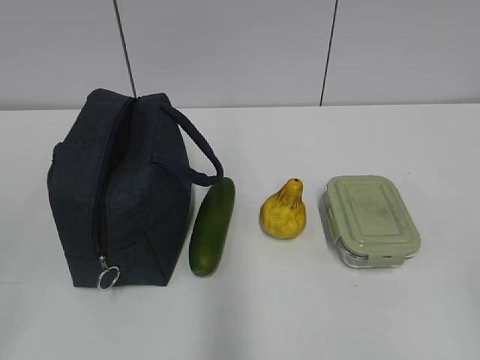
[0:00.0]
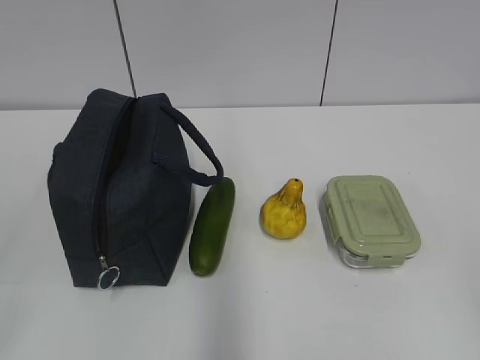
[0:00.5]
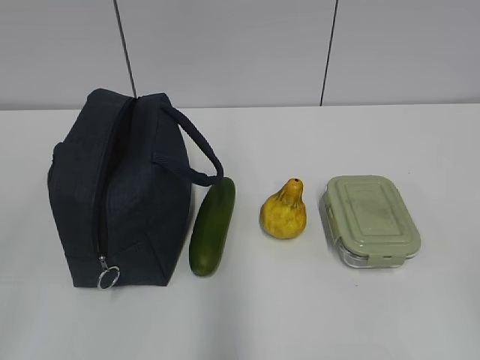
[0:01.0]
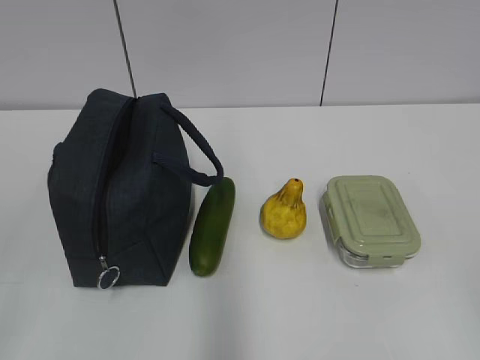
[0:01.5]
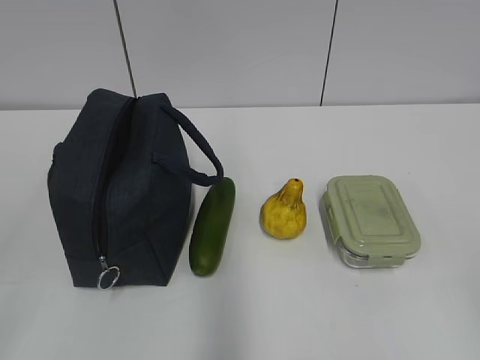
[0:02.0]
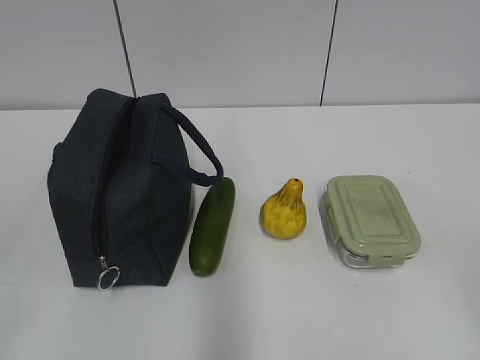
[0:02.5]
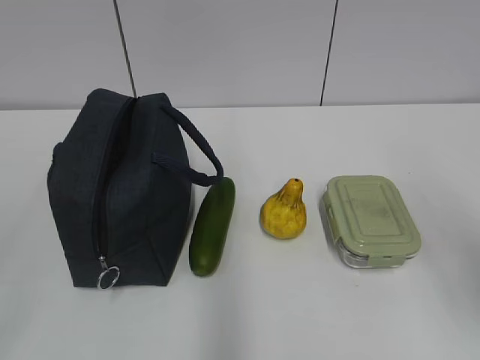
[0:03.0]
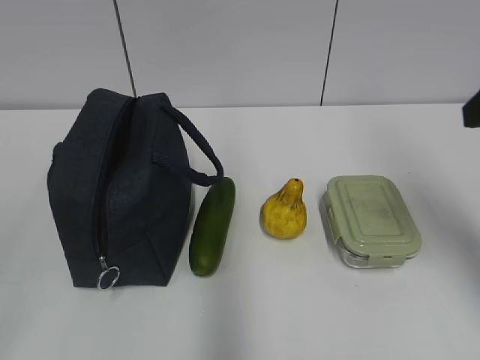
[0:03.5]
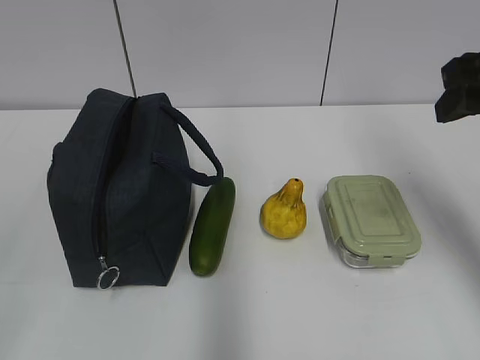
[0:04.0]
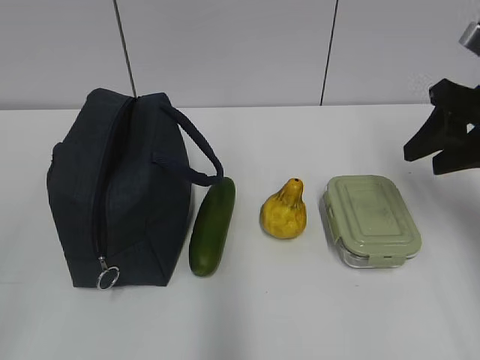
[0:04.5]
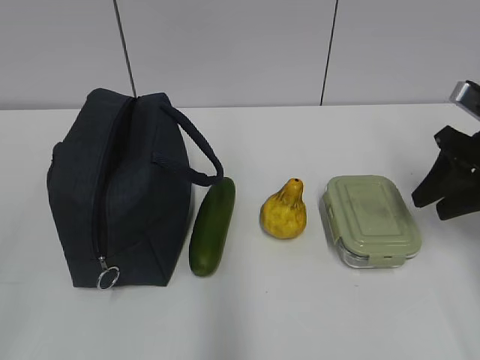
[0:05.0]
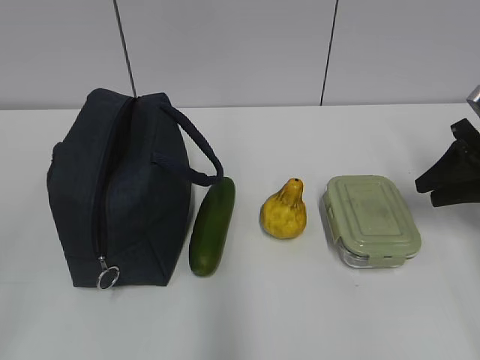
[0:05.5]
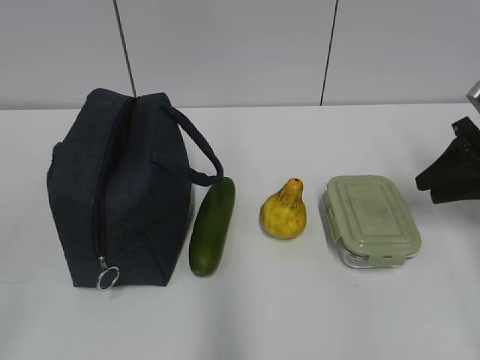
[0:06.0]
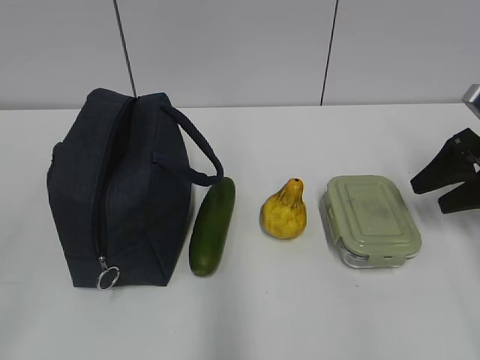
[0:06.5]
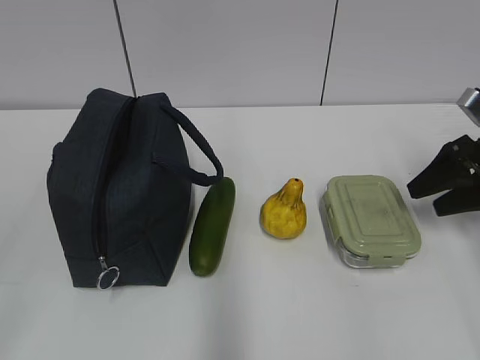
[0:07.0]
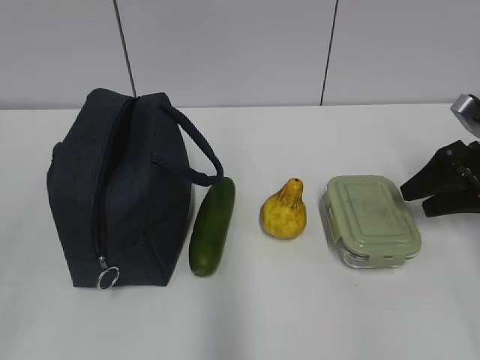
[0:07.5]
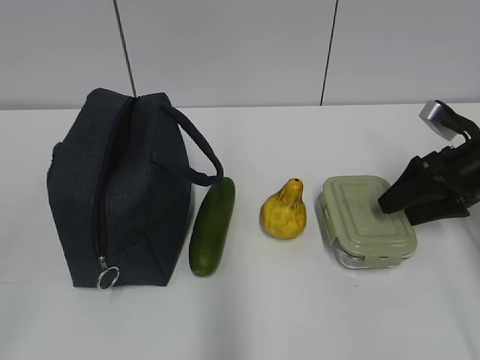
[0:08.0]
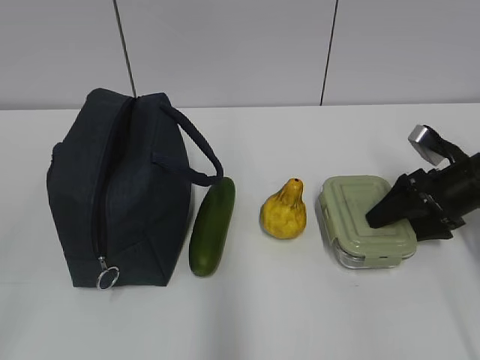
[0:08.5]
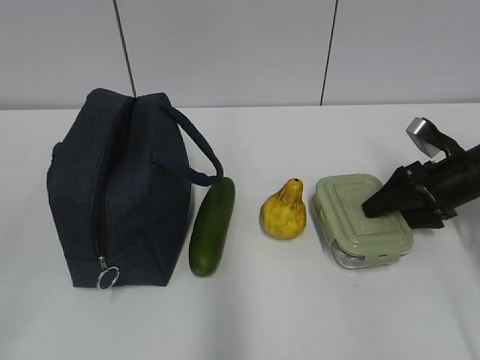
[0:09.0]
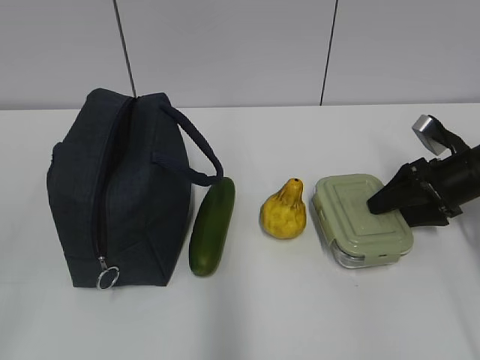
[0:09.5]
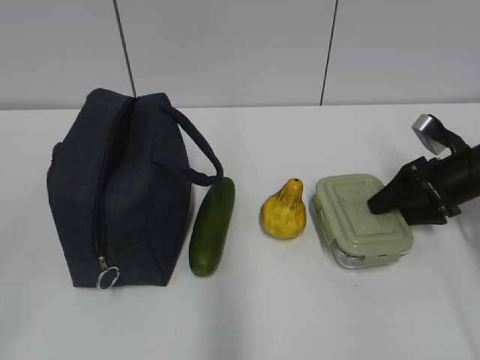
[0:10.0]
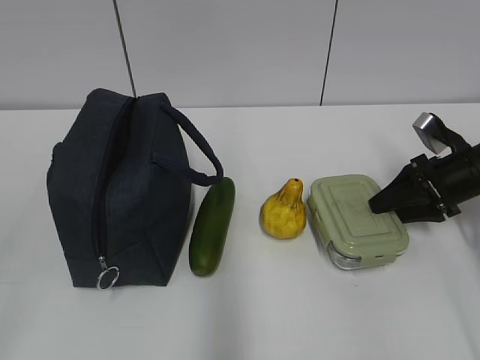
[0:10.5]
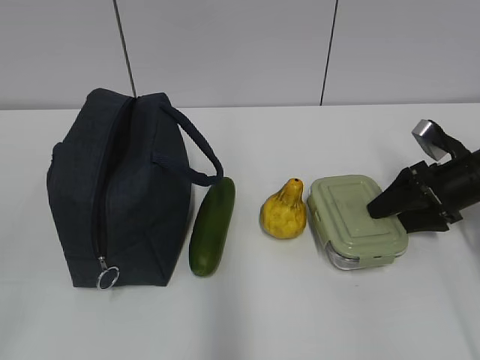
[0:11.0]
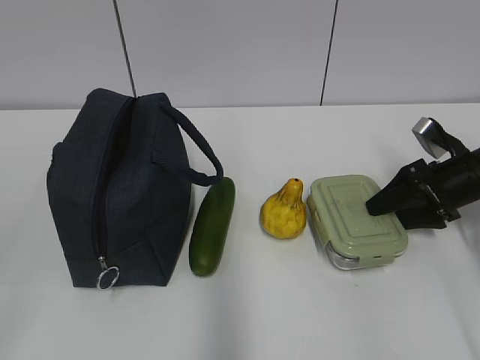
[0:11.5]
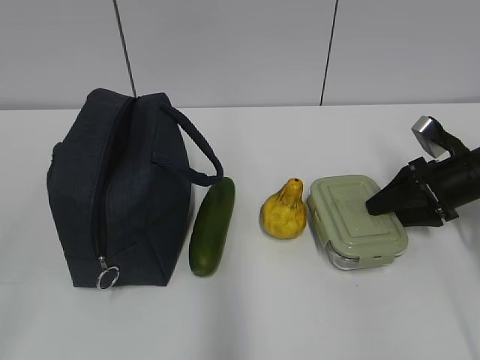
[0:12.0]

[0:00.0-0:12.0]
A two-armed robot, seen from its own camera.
0:02.0 to 0:04.0: The right gripper shifts approximately 30 cm forward, and opens.
0:04.0 to 0:06.0: The right gripper travels downward, to the right and forward by about 20 cm.
0:06.0 to 0:08.0: The right gripper opens its fingers.
0:08.0 to 0:10.0: There are only small adjustments of the grippers.
0:10.0 to 0:12.0: Both grippers stay about where they are.

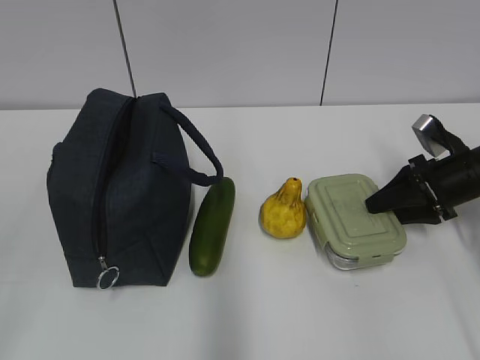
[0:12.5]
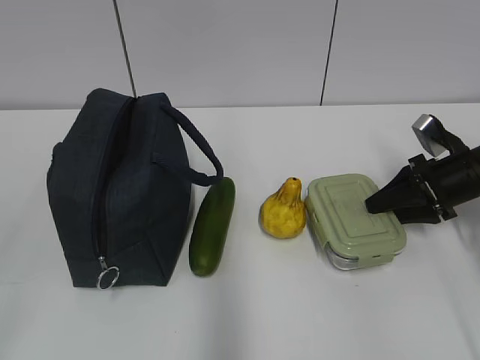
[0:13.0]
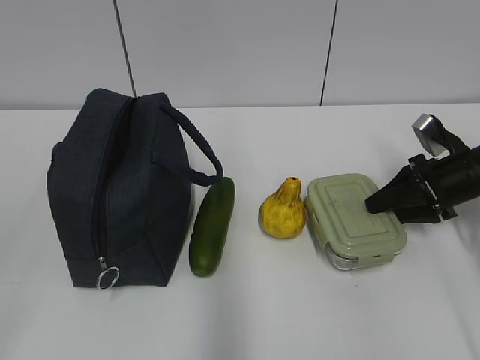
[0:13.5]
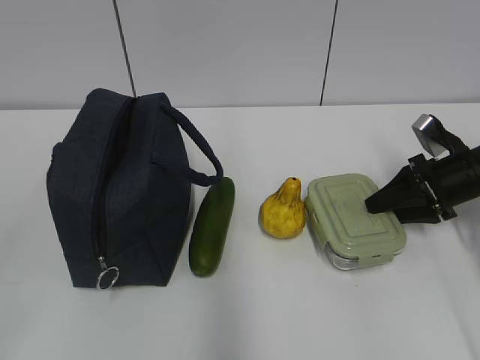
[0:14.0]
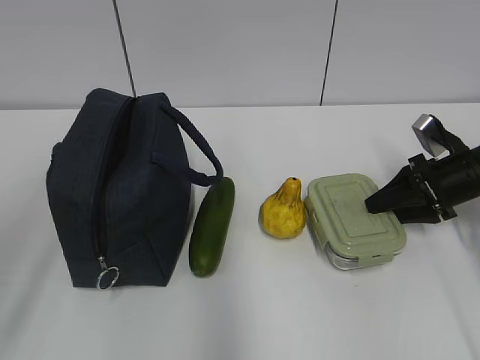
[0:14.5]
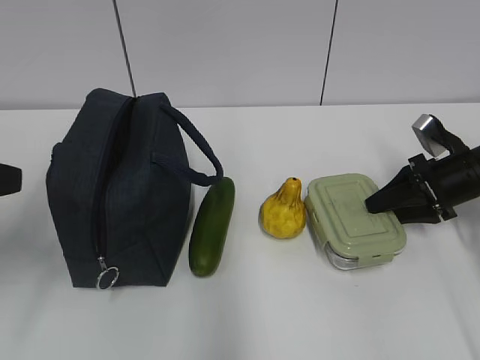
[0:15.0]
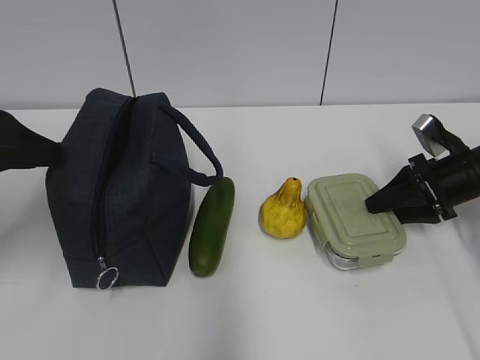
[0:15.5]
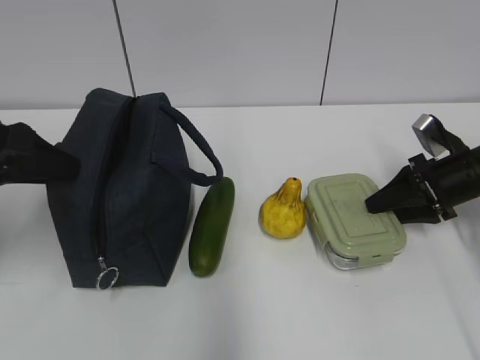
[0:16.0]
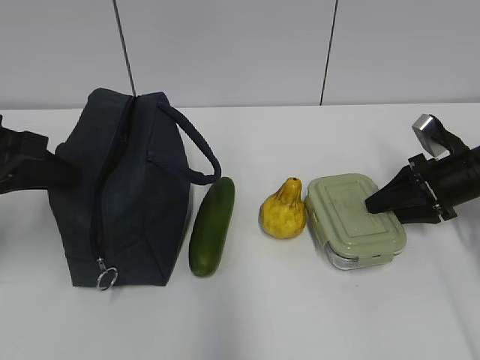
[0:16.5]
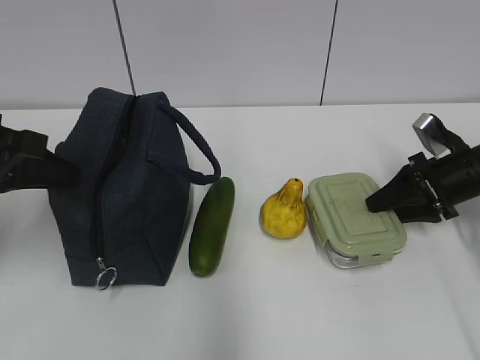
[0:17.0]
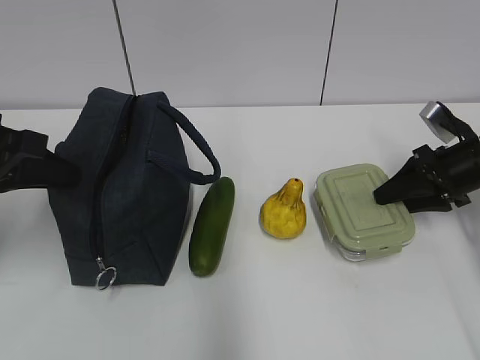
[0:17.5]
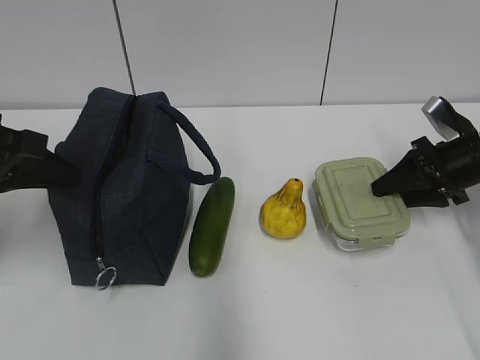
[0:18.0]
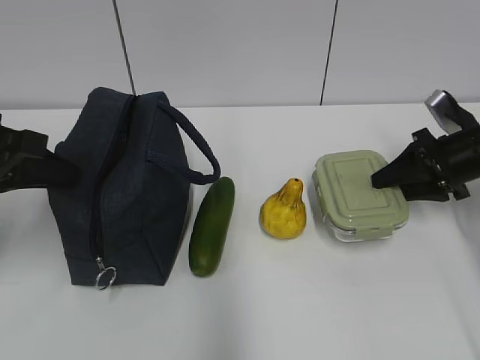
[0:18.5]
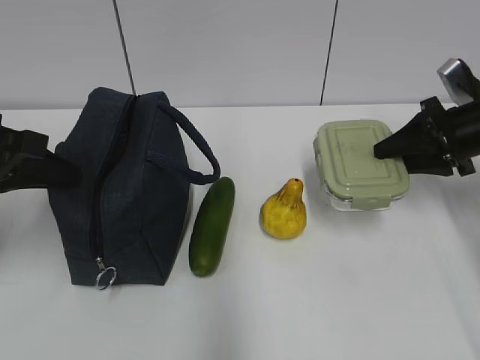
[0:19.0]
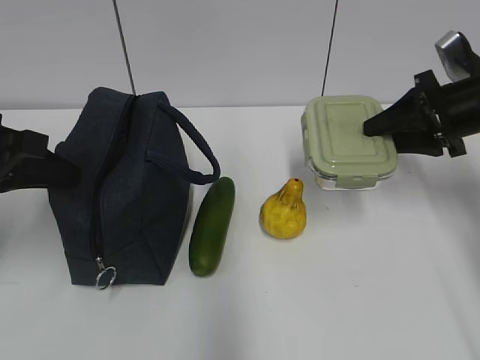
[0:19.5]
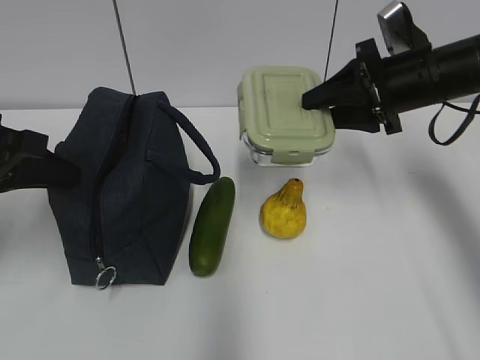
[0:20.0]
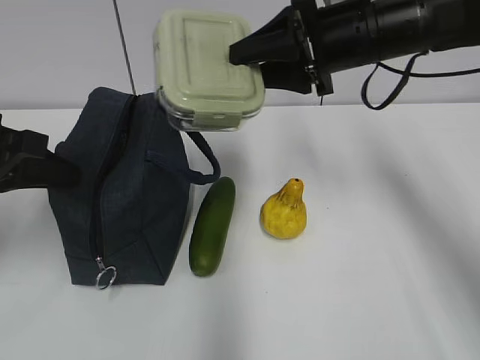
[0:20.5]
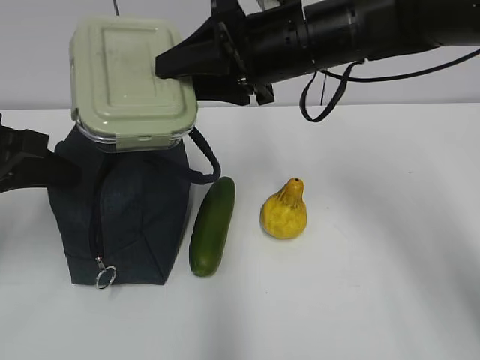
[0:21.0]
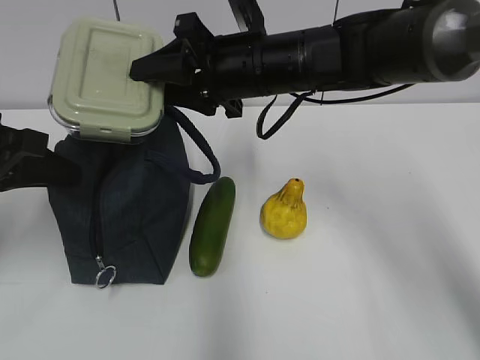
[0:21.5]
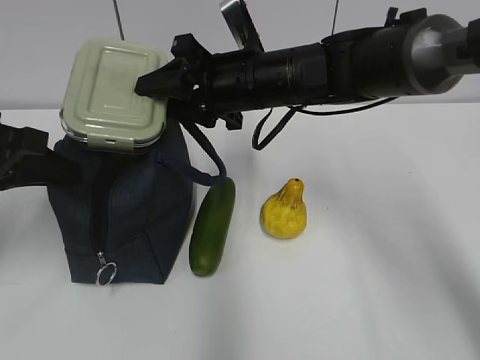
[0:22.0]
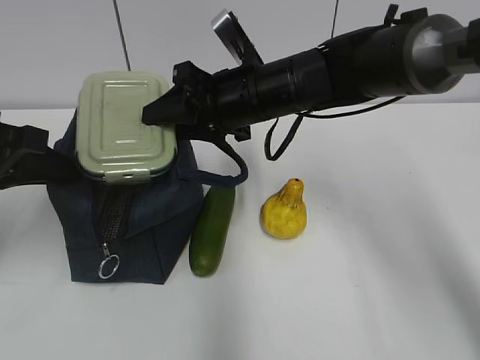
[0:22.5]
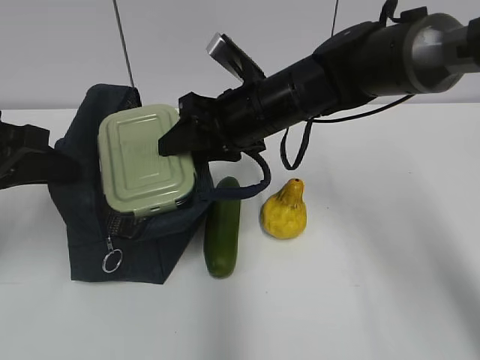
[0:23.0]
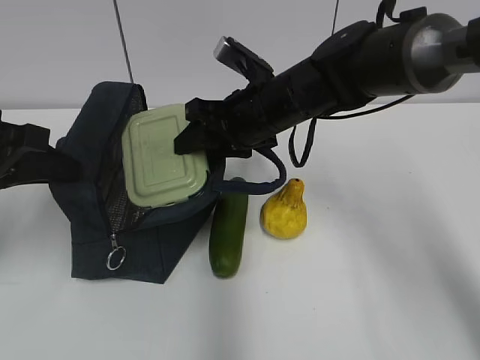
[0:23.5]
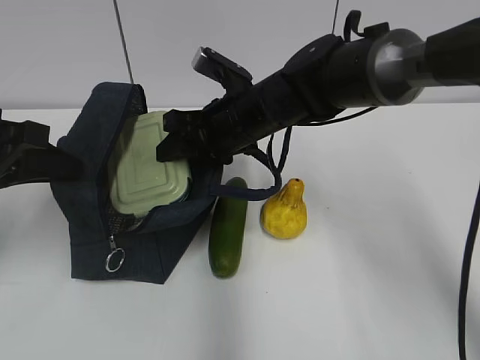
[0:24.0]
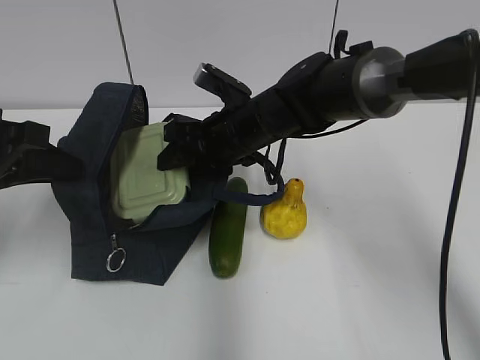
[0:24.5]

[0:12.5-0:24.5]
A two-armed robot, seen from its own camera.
Step, 0:15.0 to 0:17.5: Grab the lunch bag with your left hand.
Step, 0:18.0 to 0:20.5: Place it into the bag with your right hand.
Step, 0:21.0 to 0:22.5: Grab the pear with your right hand.
0:14.5 to 0:16.5: The left gripper is displaced forward by approximately 20 cm, and closes up.
0:16.5 to 0:18.5: The grippers move only a little.
0:18.5 to 0:20.5: The right gripper is displaced to the left and upward by some 20 cm.
0:20.5 to 0:22.5: The right gripper heads to the left and downward, covering some 15 cm.
0:22.5 to 0:24.5: The right gripper goes approximately 5 cm downward.

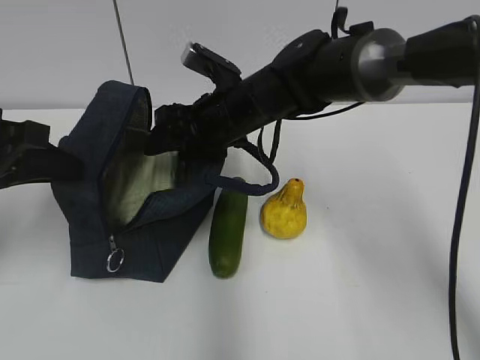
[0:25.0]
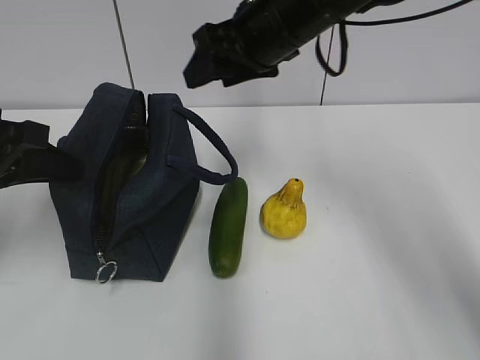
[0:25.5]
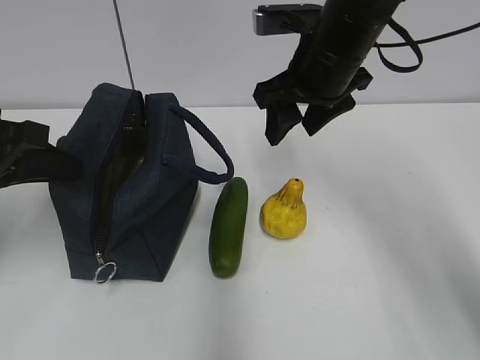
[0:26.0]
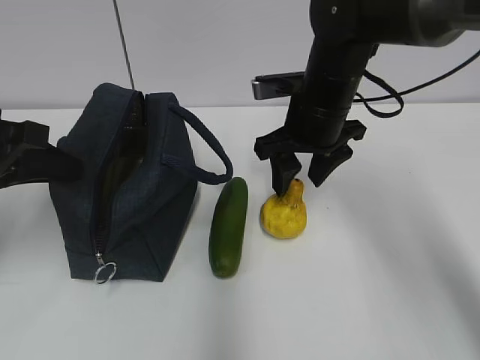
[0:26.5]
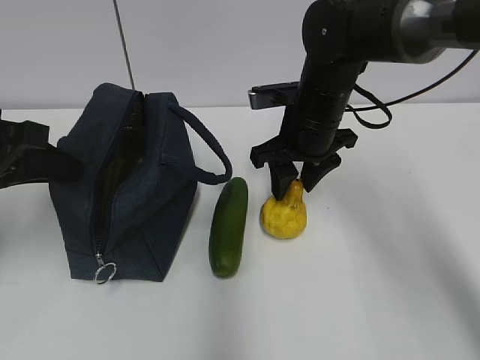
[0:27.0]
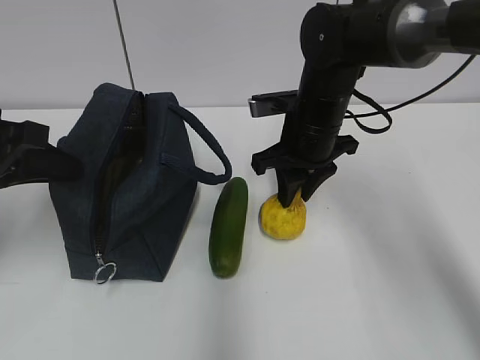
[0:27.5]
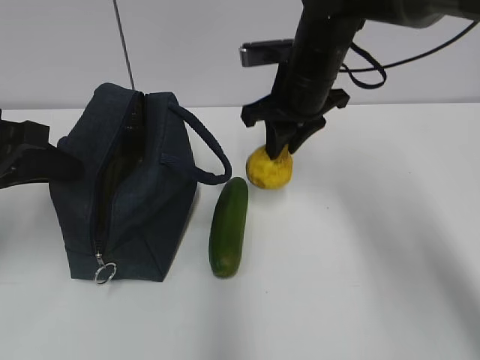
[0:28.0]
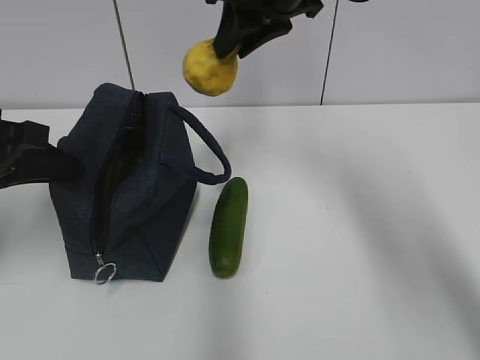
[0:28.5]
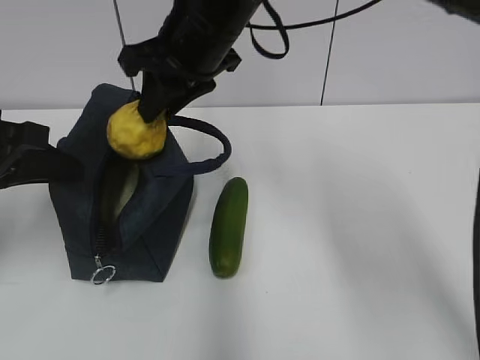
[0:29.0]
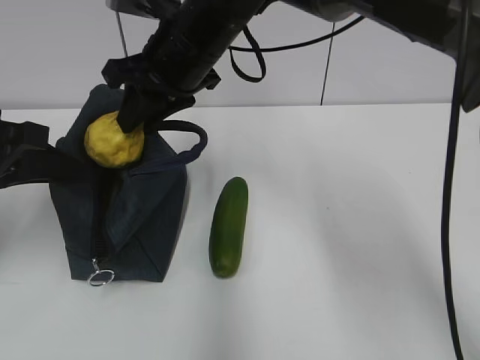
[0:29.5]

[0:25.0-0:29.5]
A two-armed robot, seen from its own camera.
Step, 0:26.5 to 0:29.0: Grab the cucumber with your right hand.
0:25.0 to 0:27.0: The right gripper shifts about 10 cm to the right, and reaches roughly 10 cm upward, then returns.
0:27.0 to 0:29.5: The right gripper goes approximately 15 cm to the left and upward.
